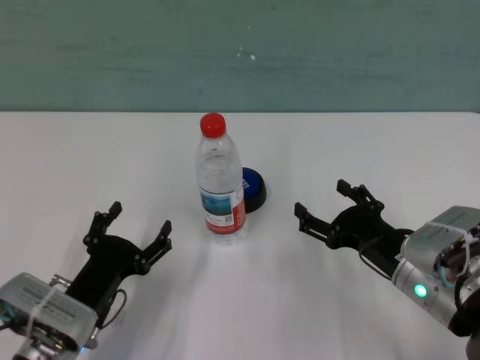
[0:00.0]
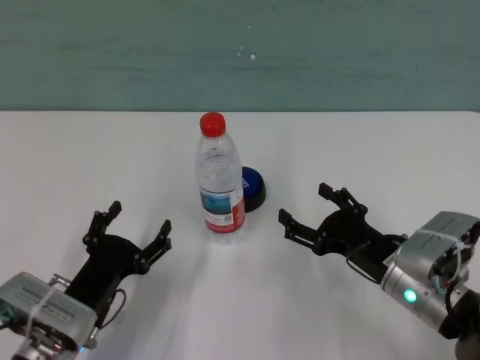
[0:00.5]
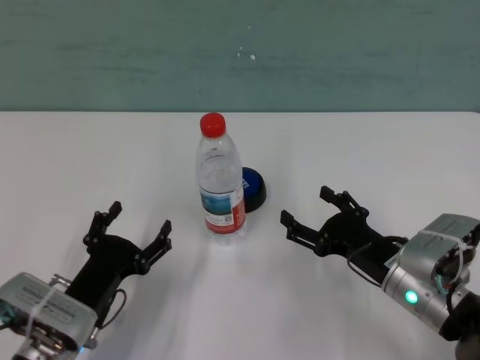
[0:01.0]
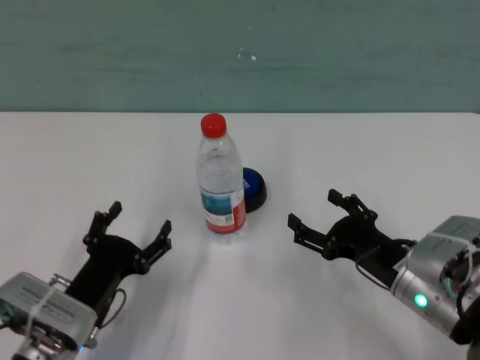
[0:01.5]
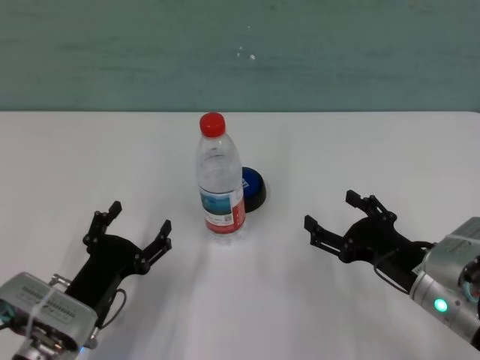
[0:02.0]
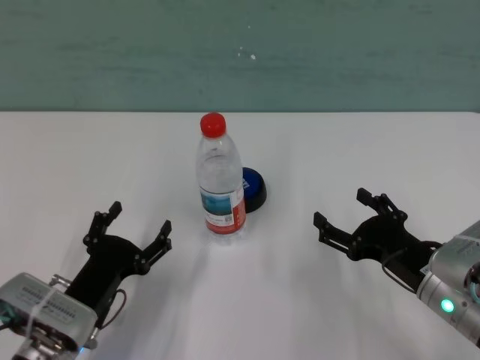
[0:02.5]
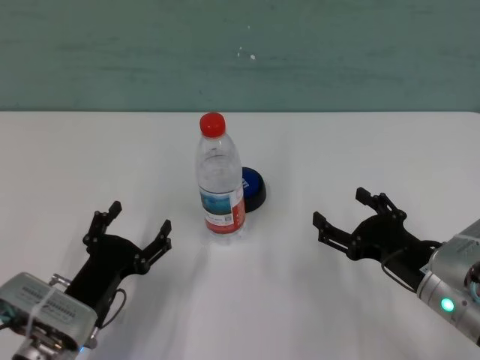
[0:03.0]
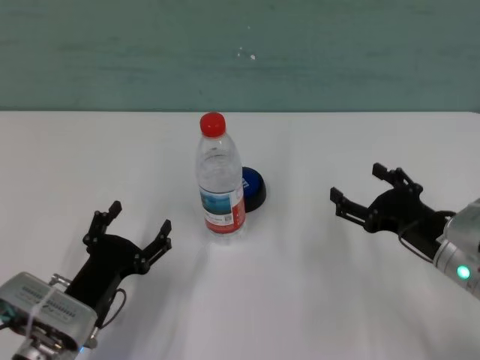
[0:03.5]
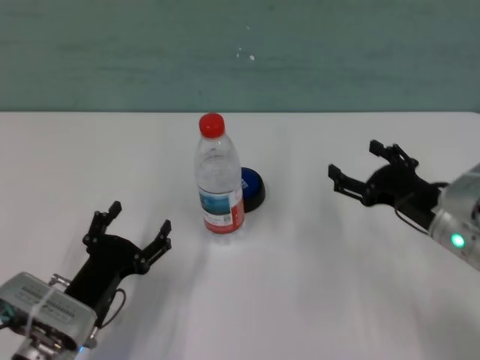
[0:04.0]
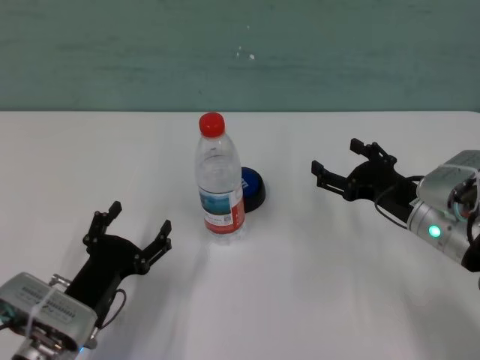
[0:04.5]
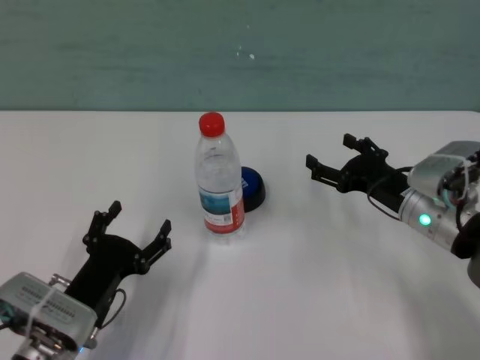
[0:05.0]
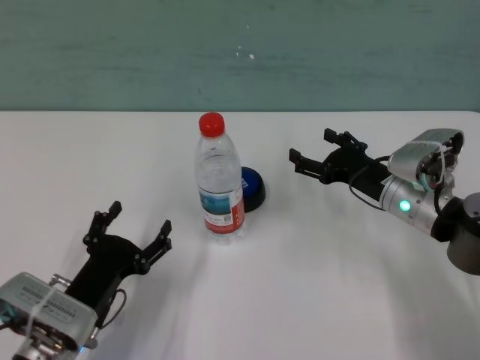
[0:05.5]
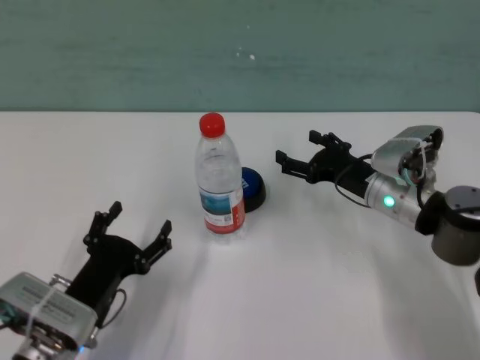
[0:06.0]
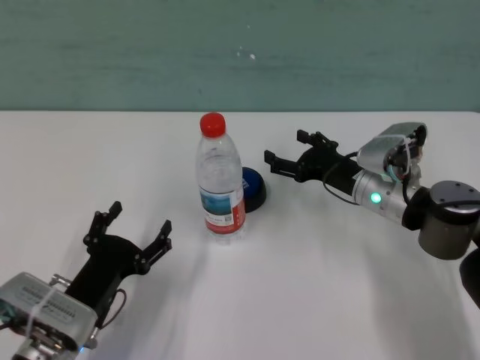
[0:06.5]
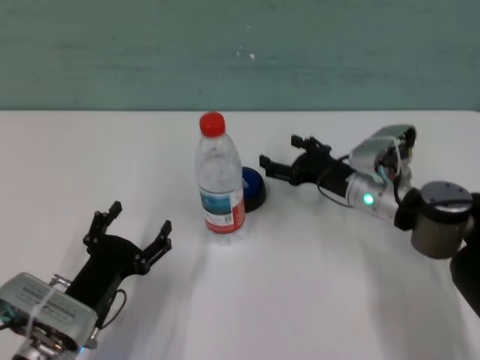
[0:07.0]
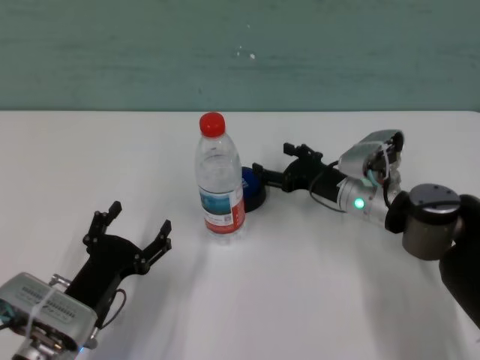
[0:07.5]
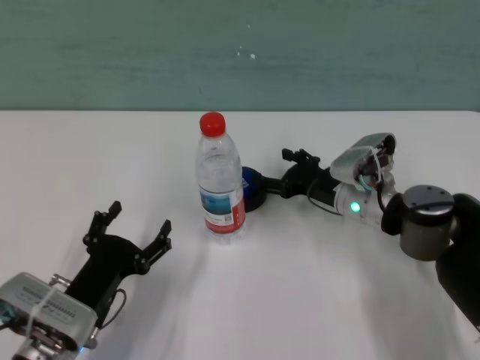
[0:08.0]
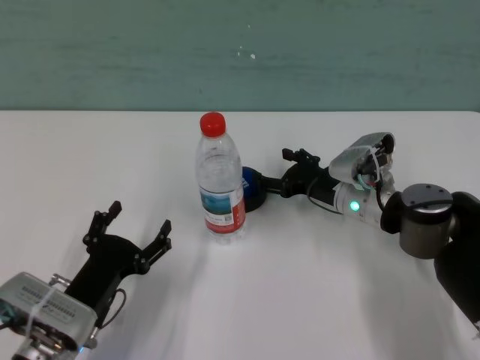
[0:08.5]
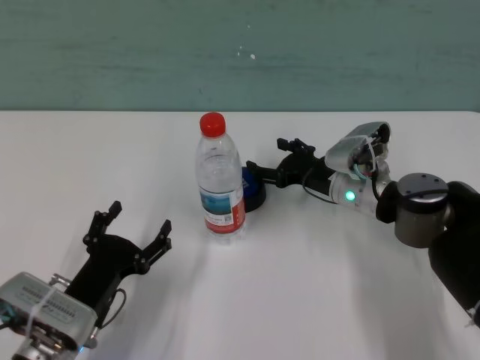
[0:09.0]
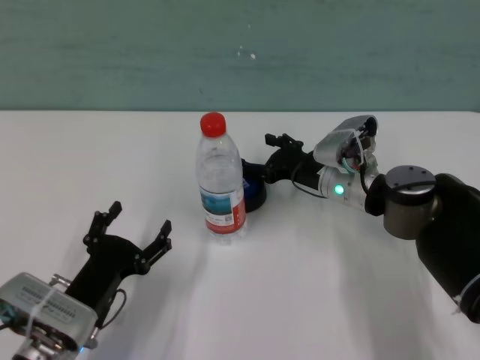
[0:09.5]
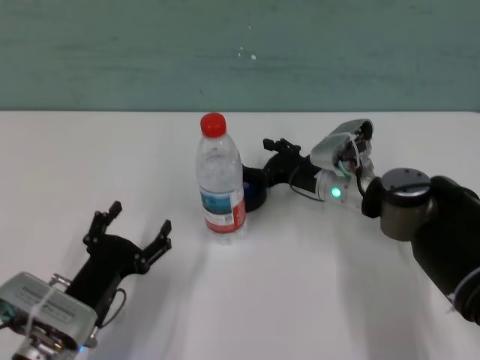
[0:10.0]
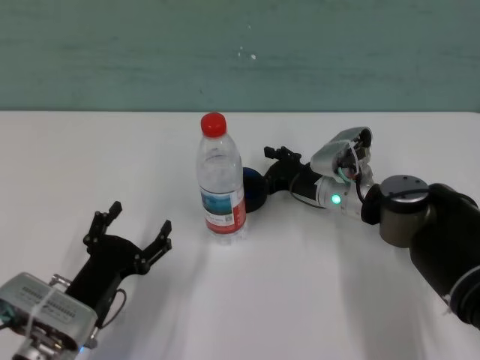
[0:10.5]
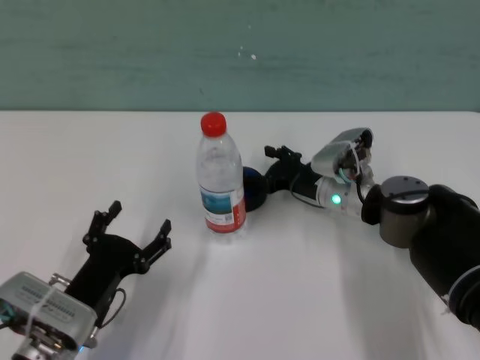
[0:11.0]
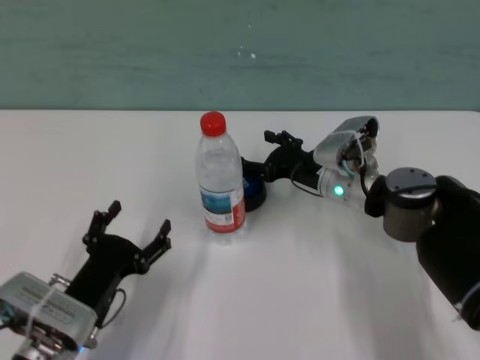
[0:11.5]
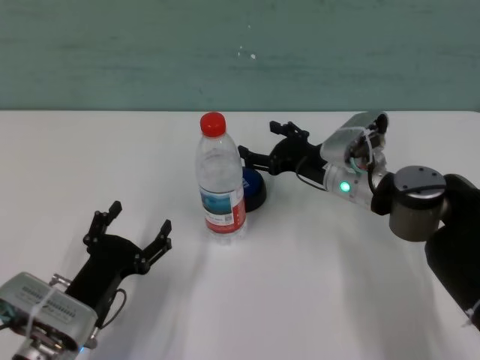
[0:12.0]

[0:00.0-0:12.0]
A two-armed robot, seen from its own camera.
Task of the whole recording: after avoiding the water bottle on the table, press the button.
Step, 0:00.0 to 0:12.0: Press the button blocked by the bottle with right gripper.

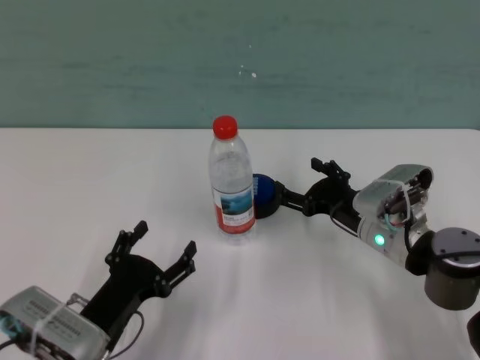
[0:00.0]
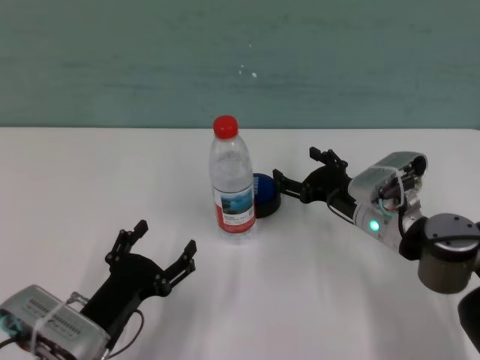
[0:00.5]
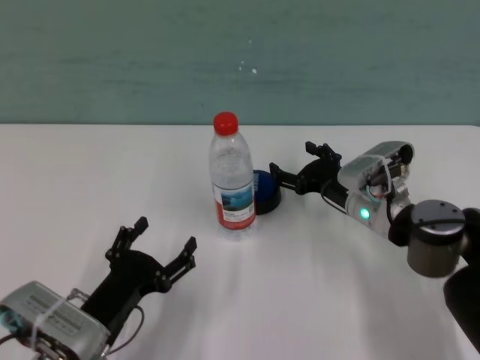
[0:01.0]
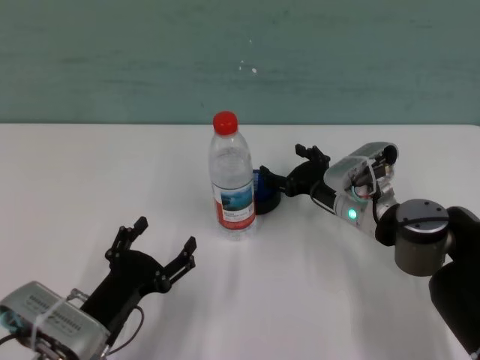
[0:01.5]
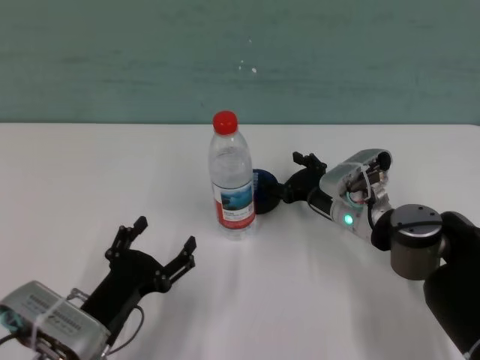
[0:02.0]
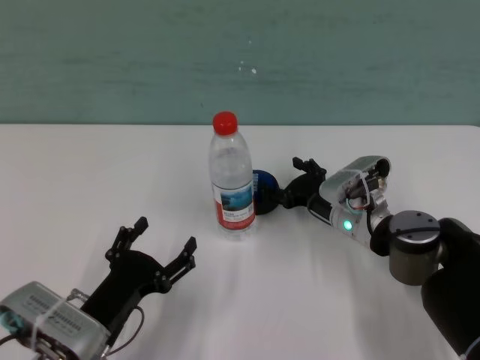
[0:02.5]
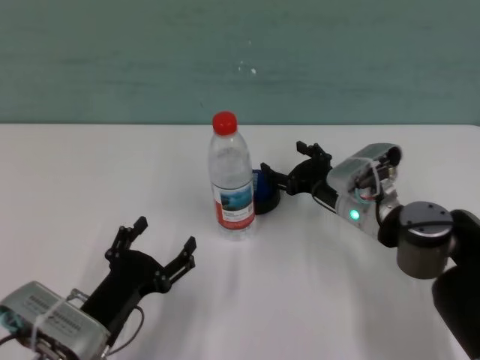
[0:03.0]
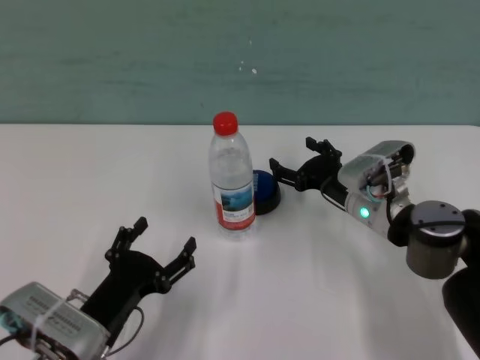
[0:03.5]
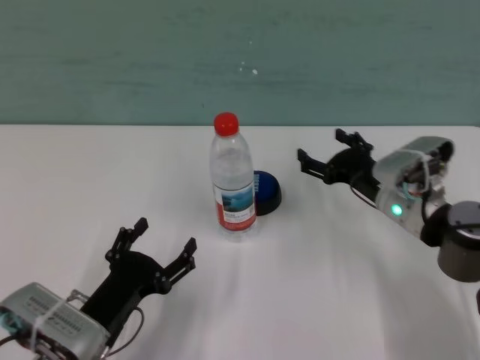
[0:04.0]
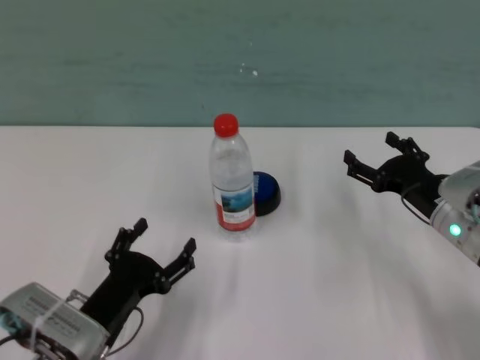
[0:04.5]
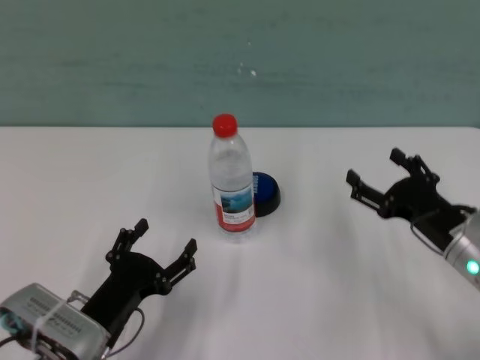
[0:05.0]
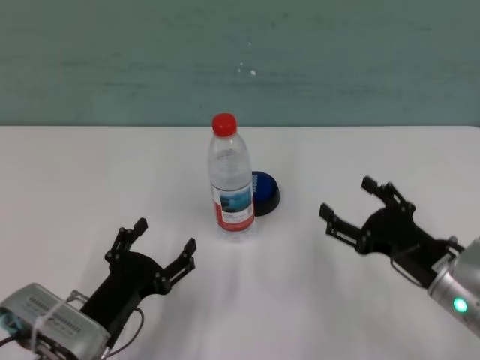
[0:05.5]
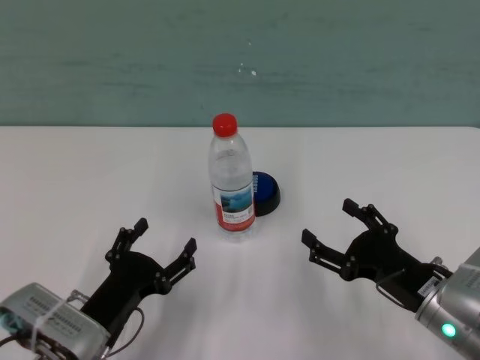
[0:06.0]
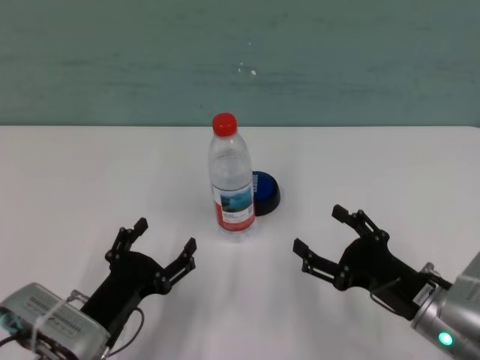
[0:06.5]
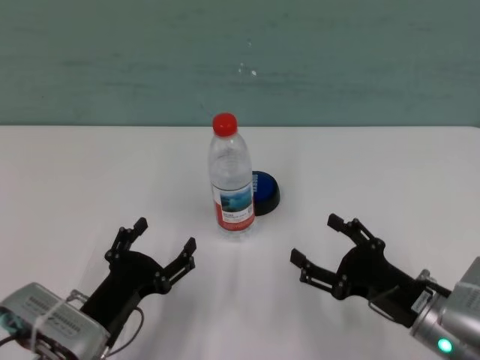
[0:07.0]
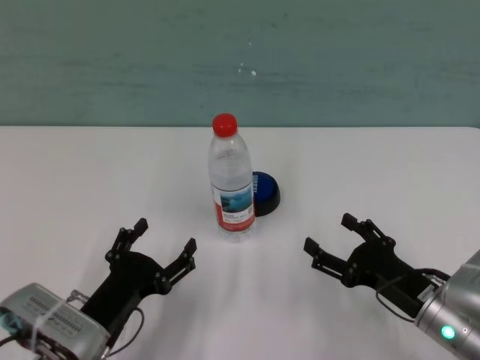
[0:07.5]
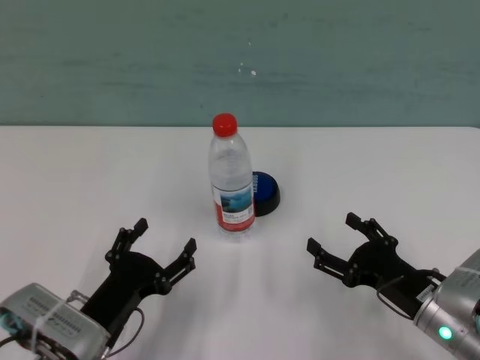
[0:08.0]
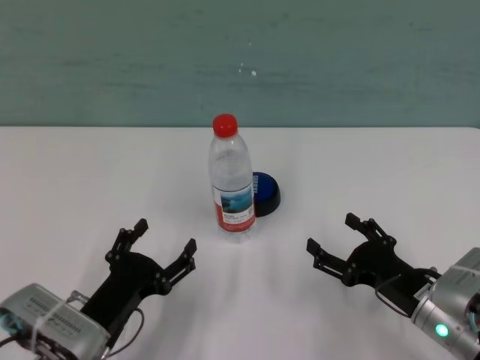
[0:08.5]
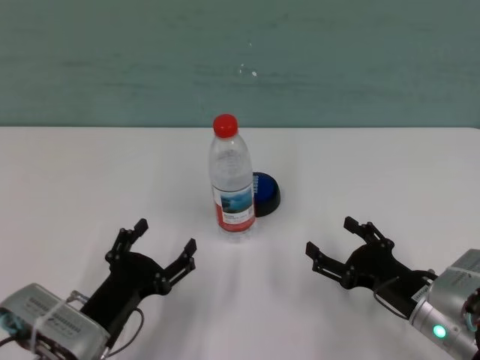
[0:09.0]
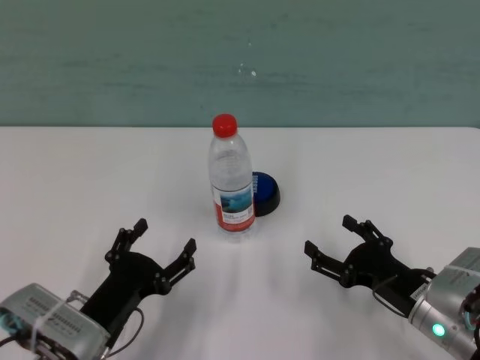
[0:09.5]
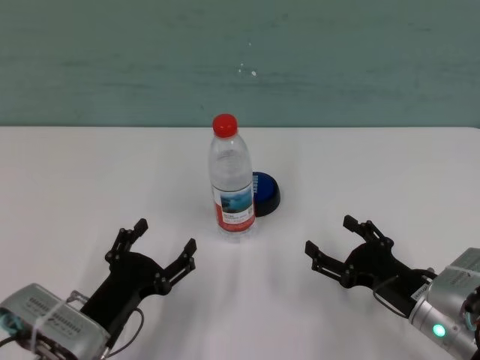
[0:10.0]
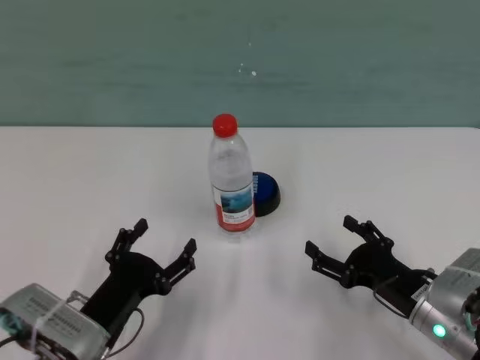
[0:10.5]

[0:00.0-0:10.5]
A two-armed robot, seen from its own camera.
Task of the whole recording: after avoiding the water bottle on the table, press the button.
Step, 0:00.0 to 0:03.0: Press the button blocked by the bottle with right gripper.
